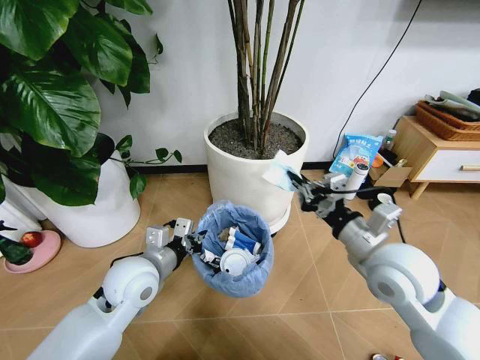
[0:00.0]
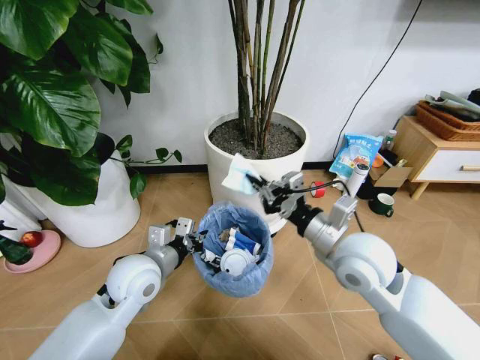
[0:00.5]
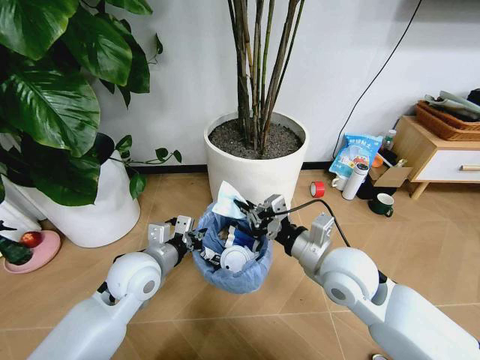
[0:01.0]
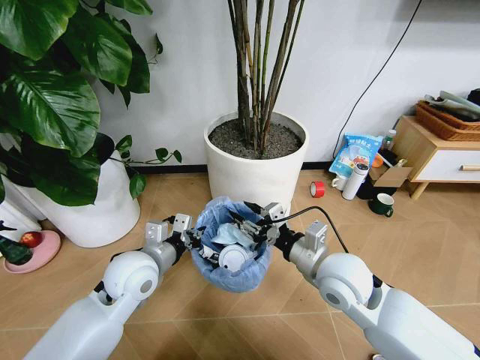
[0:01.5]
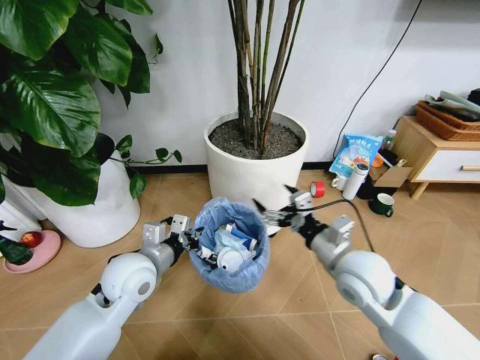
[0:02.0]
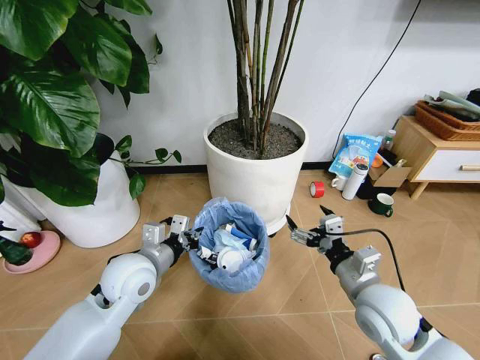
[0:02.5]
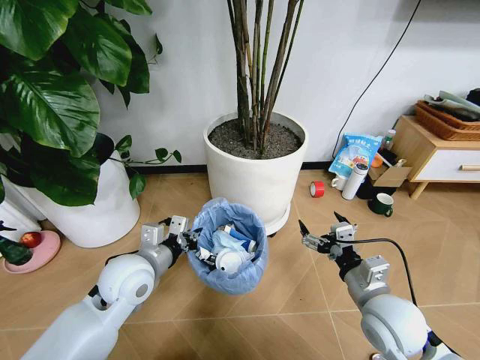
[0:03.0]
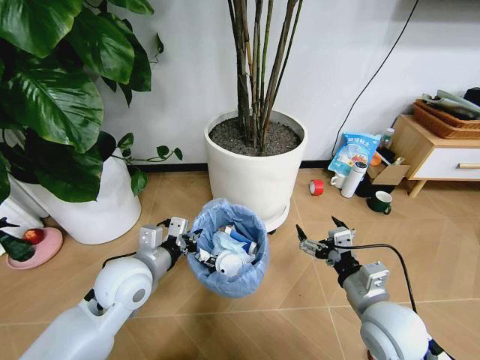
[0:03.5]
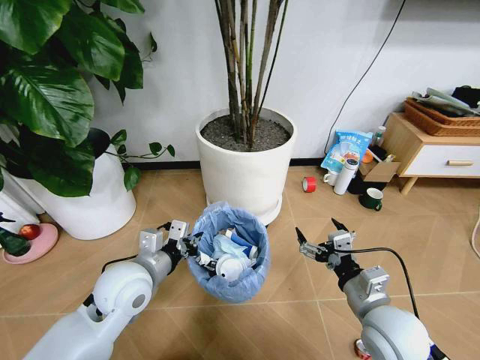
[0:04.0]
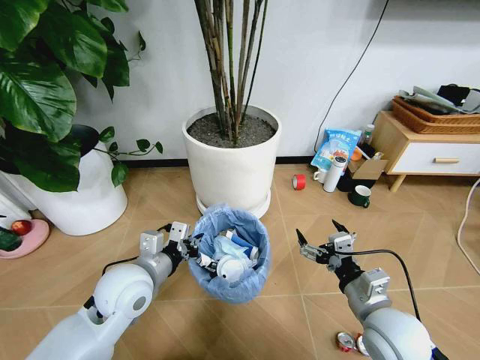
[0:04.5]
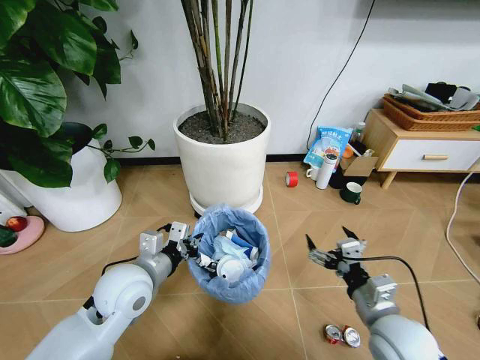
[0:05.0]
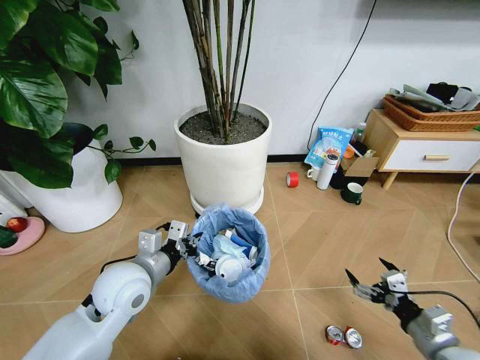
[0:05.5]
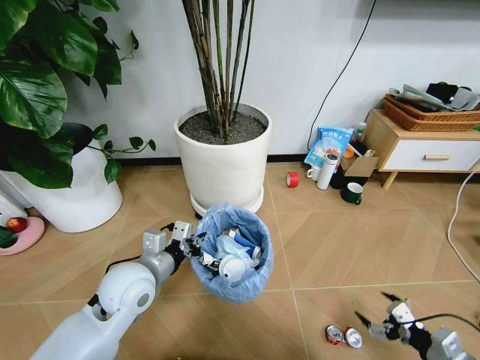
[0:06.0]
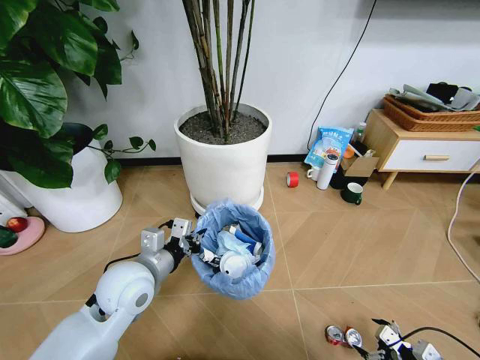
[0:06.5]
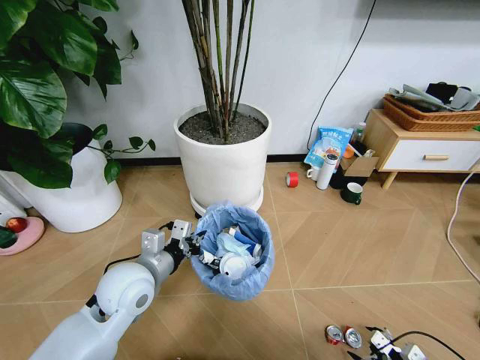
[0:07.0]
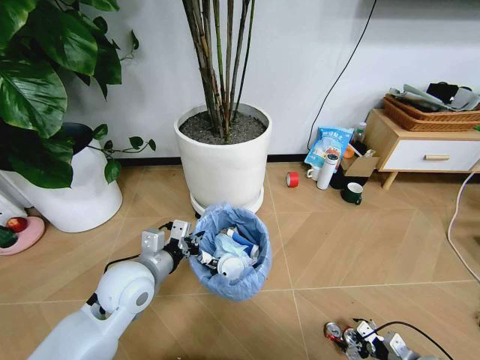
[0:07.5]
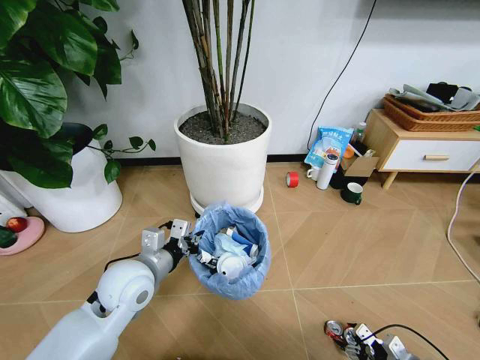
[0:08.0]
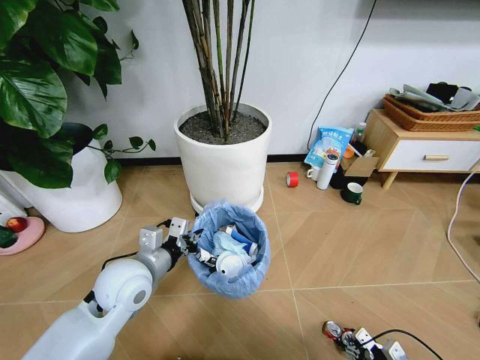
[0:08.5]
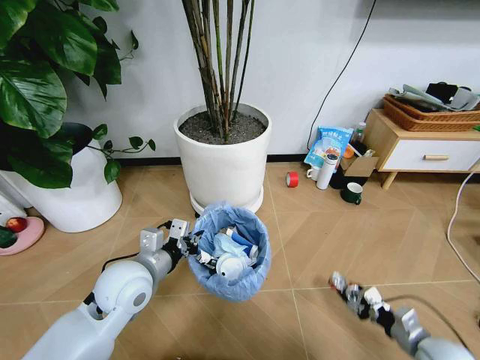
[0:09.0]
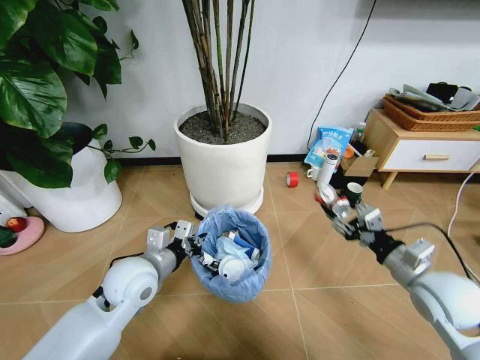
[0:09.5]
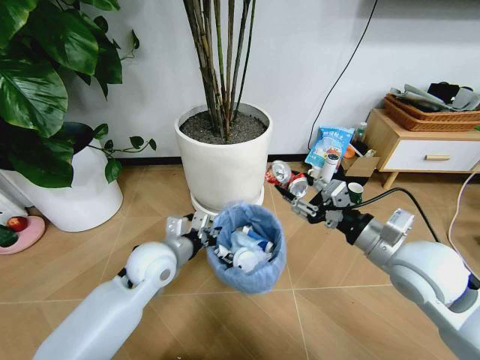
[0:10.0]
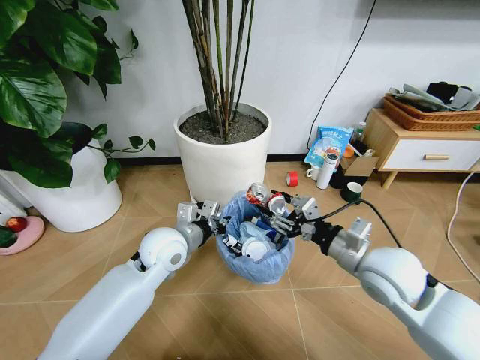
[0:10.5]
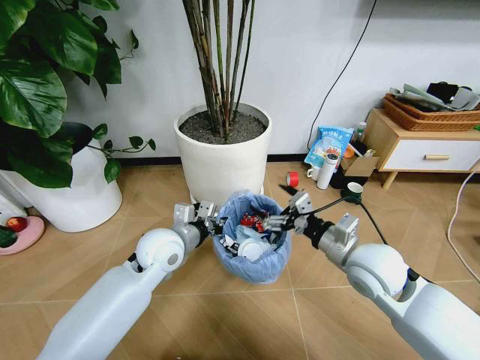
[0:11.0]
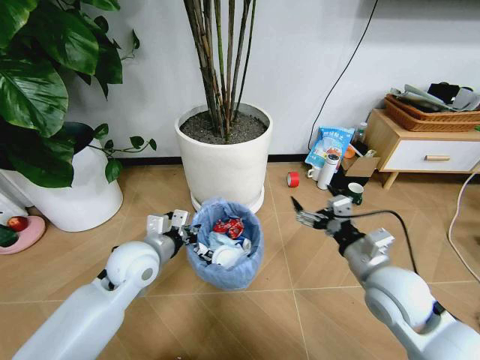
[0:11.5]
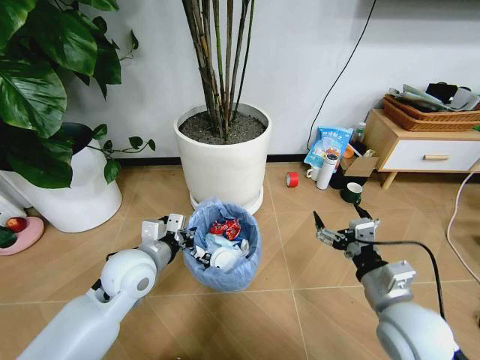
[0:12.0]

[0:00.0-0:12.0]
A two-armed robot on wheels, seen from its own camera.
Task of the whole recording: Pick up the trash bin and place the garbage on the floor into it.
0:00.0 to 0:02.0: The right gripper is displaced downward by about 5 cm, and opens up.
0:02.0 to 0:04.0: The right gripper goes about 10 cm backward and downward.
0:04.0 to 0:06.0: The right gripper moves to the right and downward, roughly 20 cm.
0:06.0 to 0:08.0: The right gripper travels downward by some 15 cm.
0:08.0 to 0:10.0: The left gripper shifts by about 5 cm. Meanwhile the right gripper moves upward and to the left, approximately 40 cm.
0:10.0 to 0:12.0: The left gripper changes place by approximately 5 cm, while the right gripper shifts some 10 cm downward and backward, and opens.

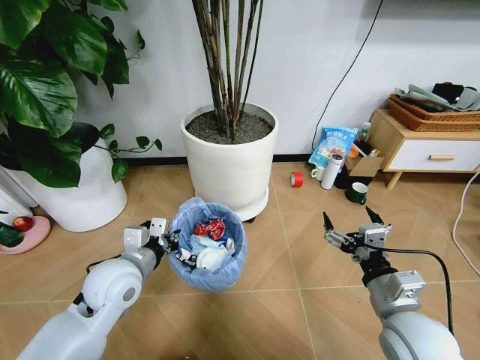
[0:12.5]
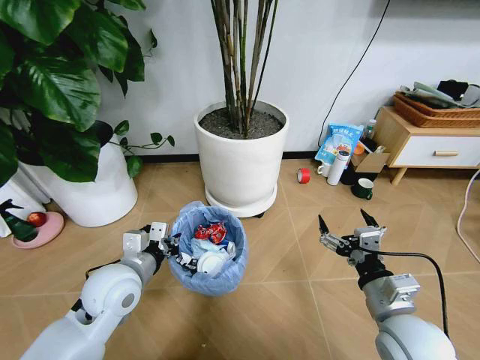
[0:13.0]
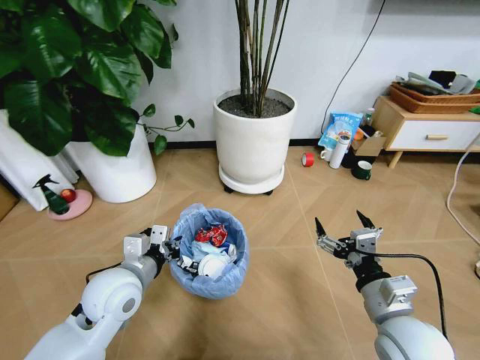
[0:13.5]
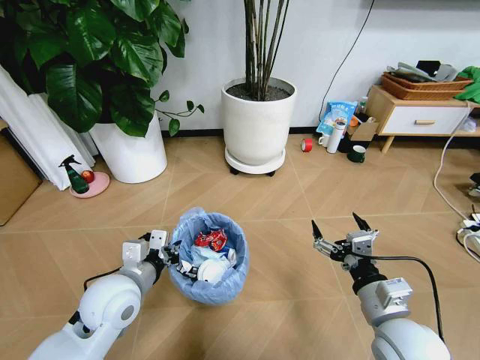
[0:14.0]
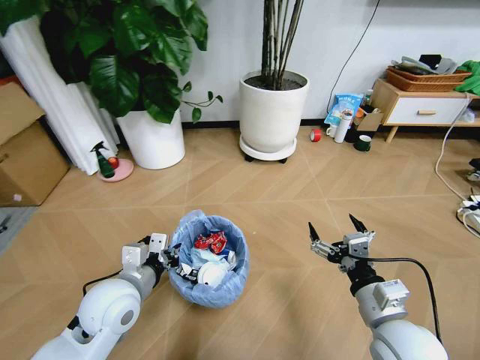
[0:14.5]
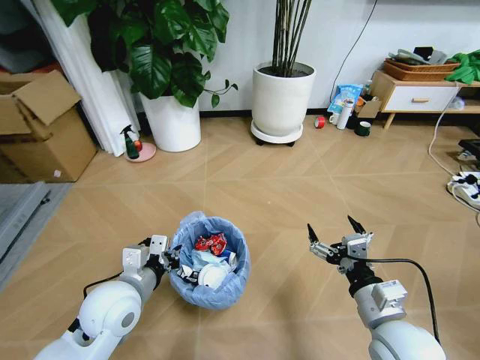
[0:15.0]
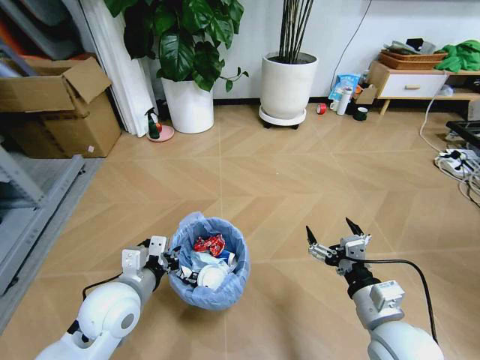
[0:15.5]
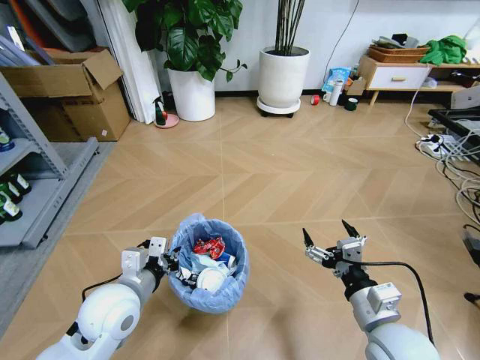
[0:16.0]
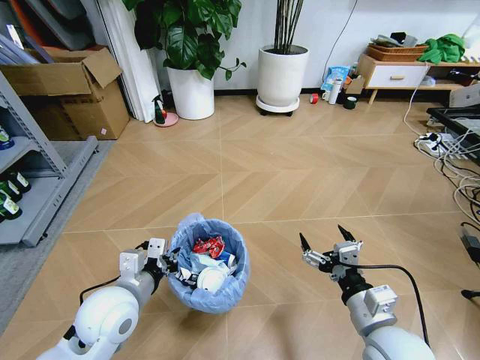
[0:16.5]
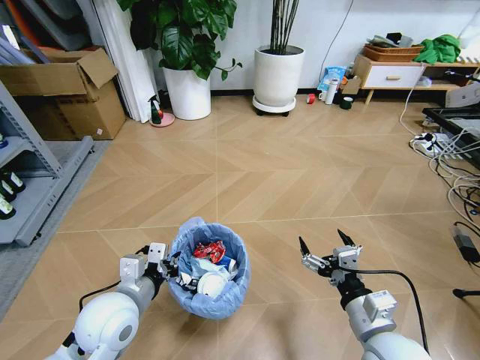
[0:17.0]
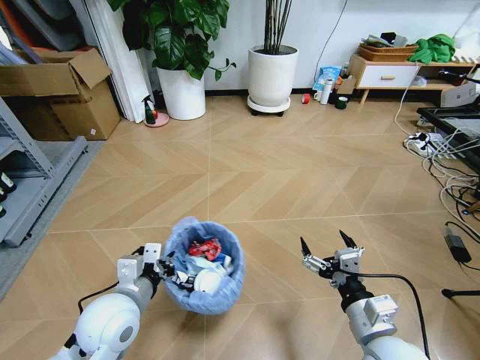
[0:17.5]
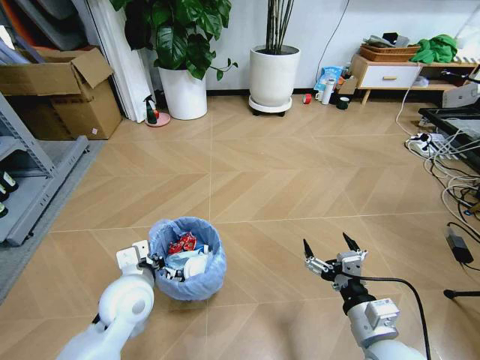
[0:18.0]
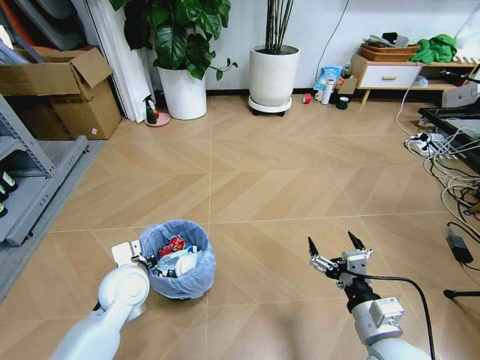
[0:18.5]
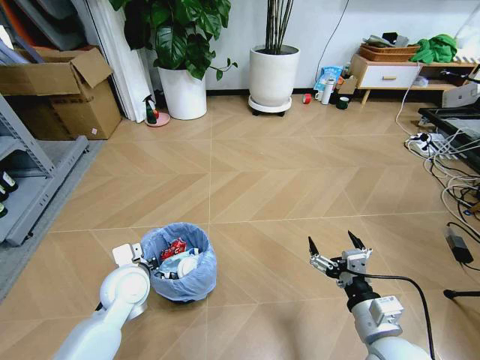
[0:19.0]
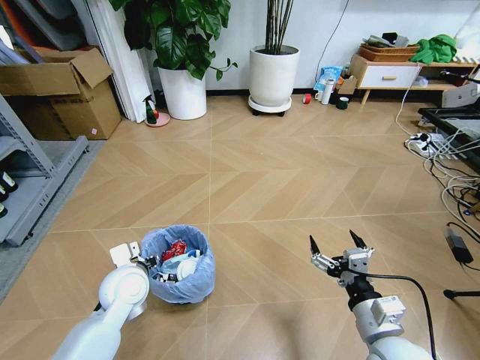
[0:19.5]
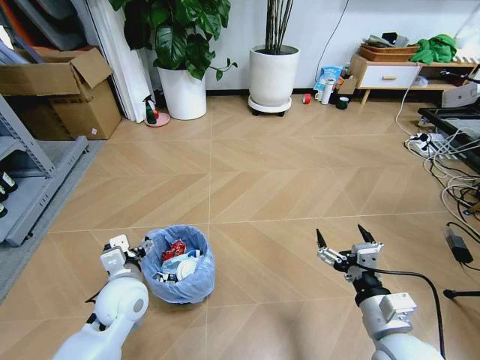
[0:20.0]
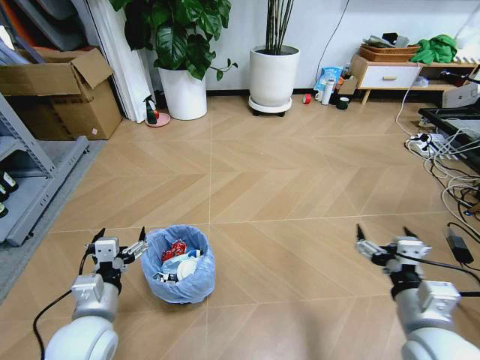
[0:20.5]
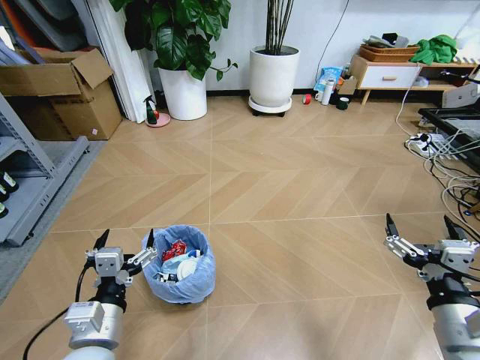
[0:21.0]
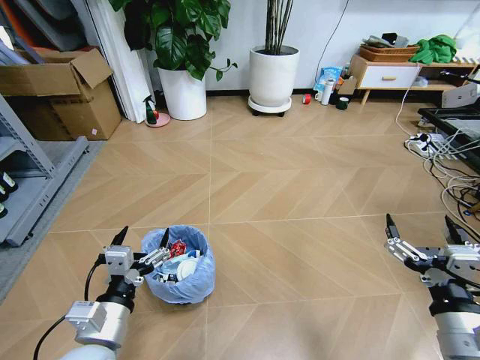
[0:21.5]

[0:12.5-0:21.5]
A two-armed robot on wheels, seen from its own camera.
Task of the whole recording: Pick up the trash bin and place the garbage on the floor into it.
0:17.0 to 0:19.5: The left gripper travels forward by about 10 cm, and opens up.
0:19.5 to 0:21.5: The left gripper heads backward, covering approximately 15 cm, and opens its fingers; the right gripper shifts about 10 cm upward and to the right.
